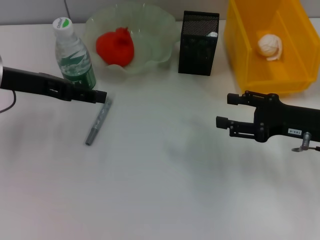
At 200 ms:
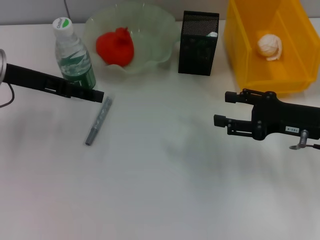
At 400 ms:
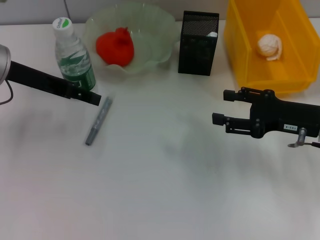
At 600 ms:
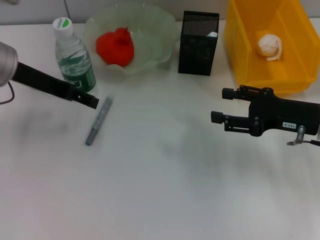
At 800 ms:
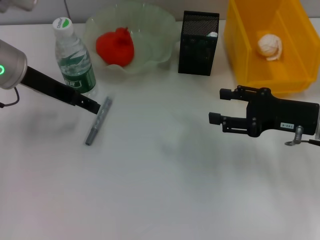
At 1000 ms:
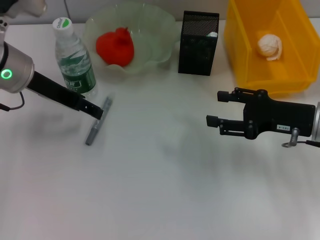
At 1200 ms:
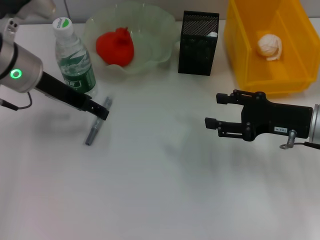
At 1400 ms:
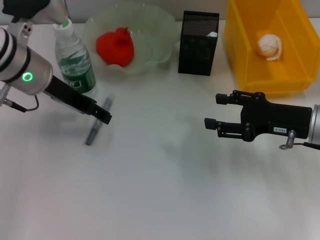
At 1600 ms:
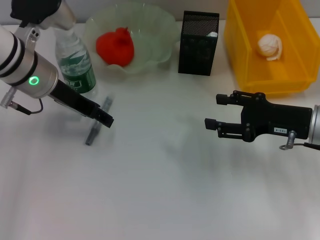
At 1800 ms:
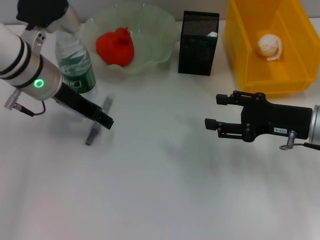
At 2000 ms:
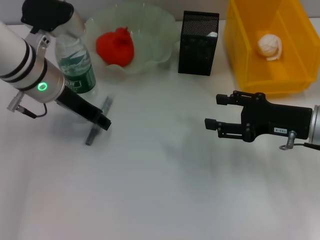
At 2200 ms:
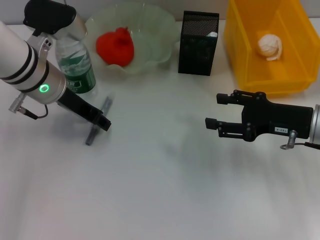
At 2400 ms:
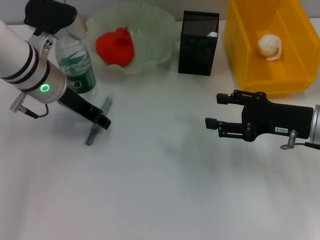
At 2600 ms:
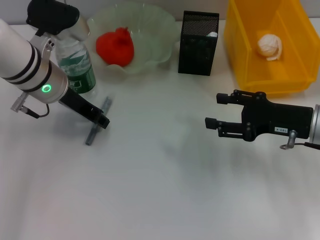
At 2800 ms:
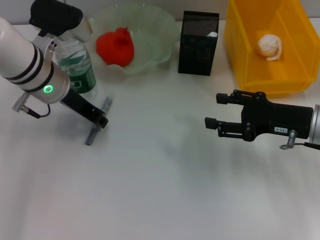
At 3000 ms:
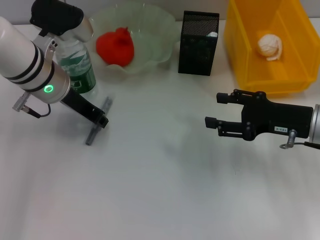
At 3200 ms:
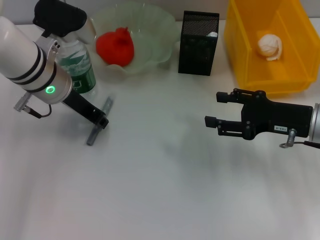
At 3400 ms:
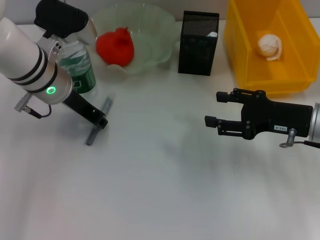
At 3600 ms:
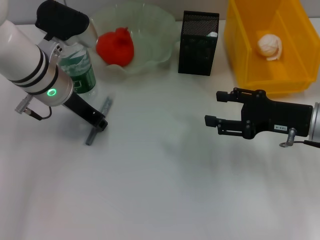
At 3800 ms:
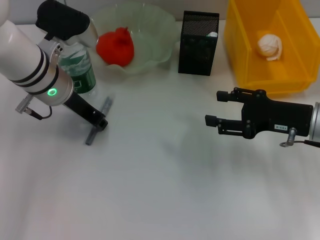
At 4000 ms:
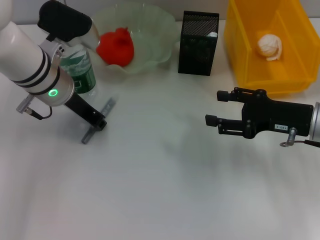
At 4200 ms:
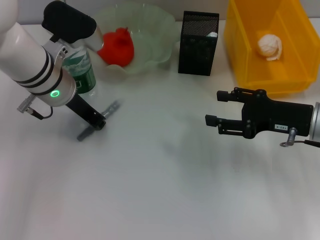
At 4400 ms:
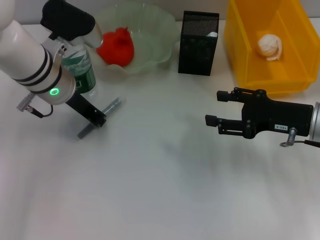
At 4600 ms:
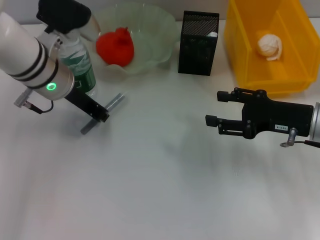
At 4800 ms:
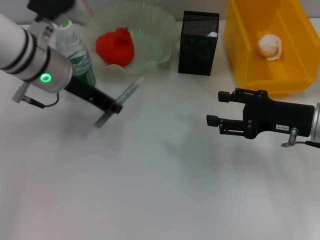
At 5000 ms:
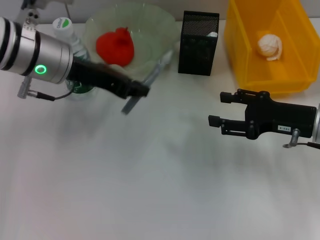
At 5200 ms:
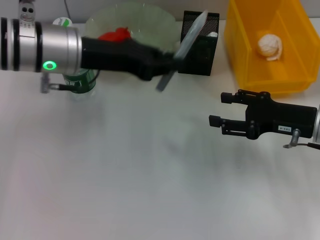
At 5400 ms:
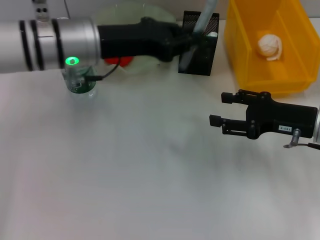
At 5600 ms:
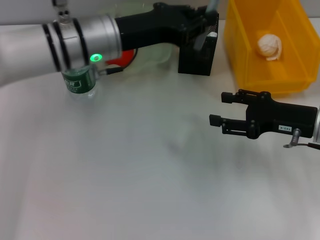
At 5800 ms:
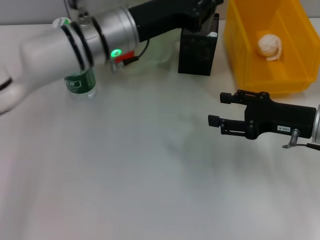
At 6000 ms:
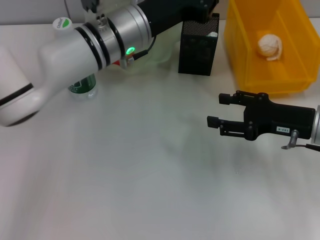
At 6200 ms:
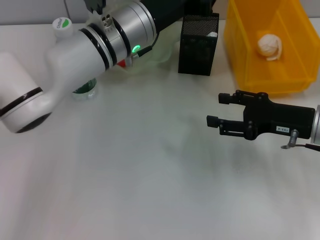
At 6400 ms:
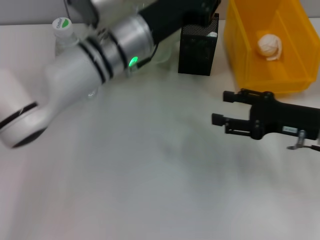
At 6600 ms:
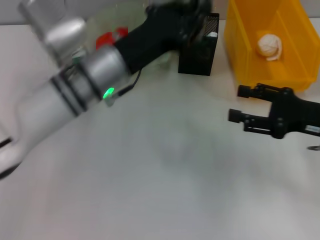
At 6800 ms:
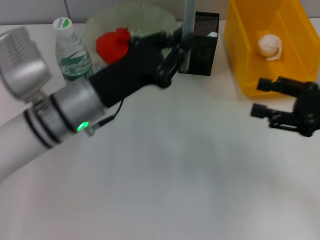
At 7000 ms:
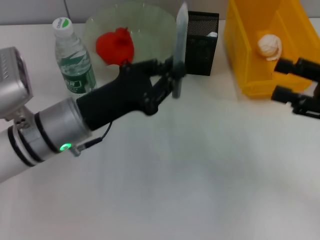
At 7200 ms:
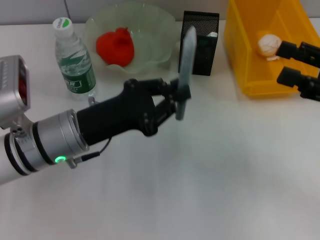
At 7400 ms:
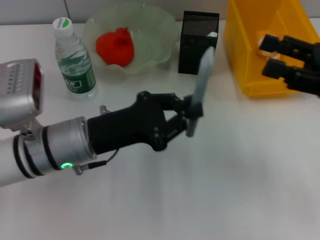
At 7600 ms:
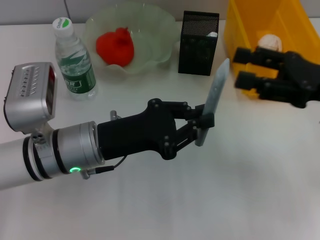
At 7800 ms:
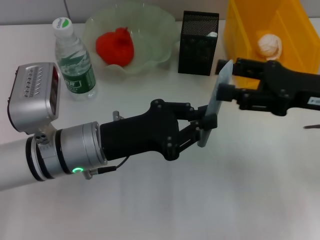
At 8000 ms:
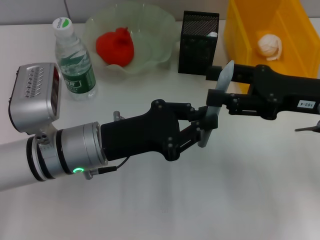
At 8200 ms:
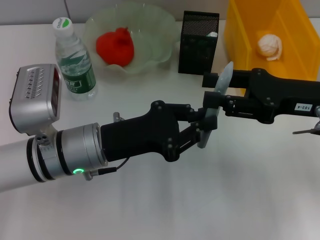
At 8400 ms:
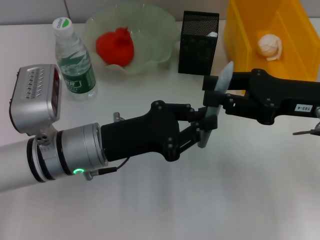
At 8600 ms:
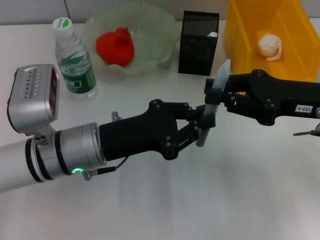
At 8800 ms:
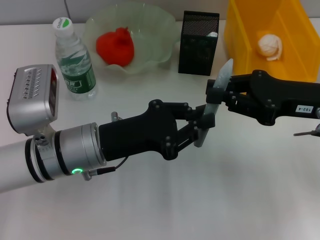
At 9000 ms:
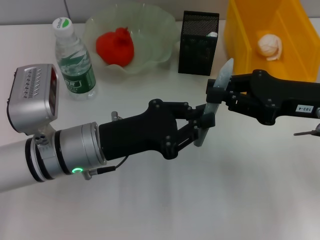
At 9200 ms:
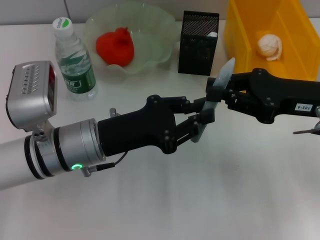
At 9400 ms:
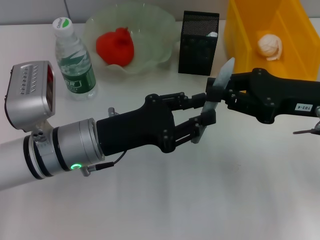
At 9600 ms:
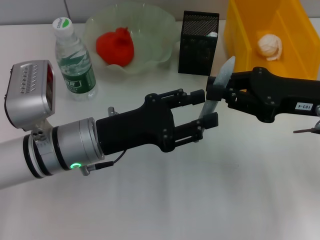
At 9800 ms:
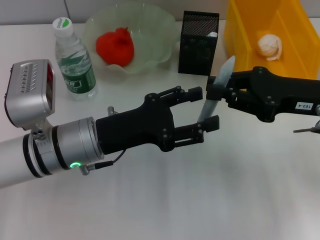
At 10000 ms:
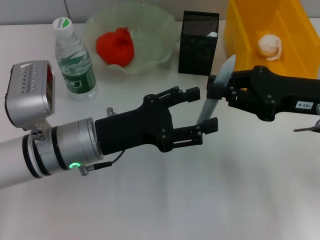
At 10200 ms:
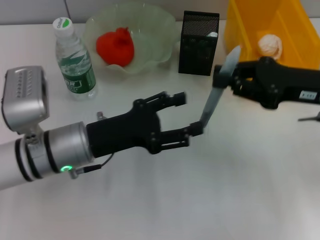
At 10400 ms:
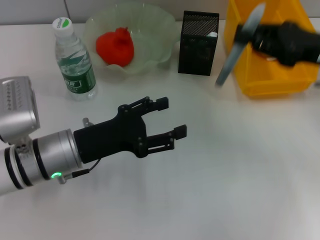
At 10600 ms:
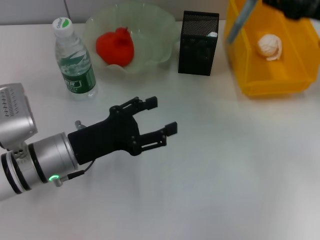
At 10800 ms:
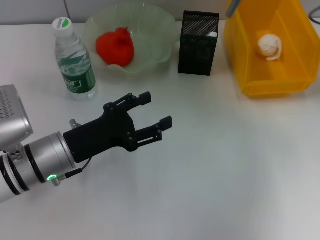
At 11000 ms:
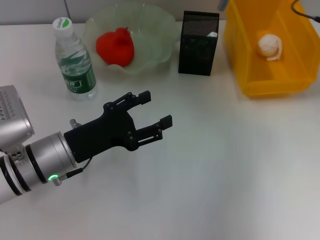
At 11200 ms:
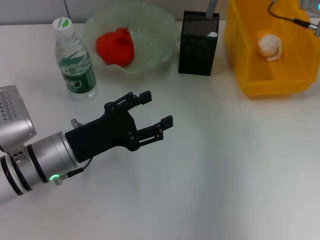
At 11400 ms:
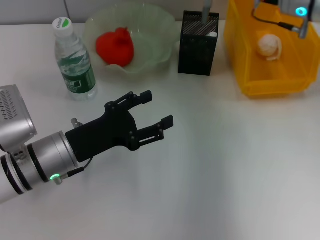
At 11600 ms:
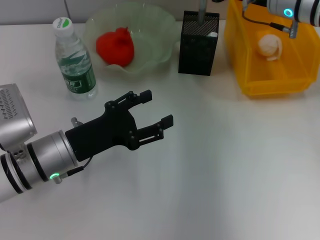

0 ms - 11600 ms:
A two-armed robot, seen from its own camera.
Step, 0 ms - 3800 ms: Grab the gray glue with the left hand.
Step, 4000 ms - 10000 ms: Pass the gray glue from the left hand to the right hand.
0 ms - 1400 ms: The left gripper heads to the right, covering approximately 5 cm.
1400 ms - 2800 ms: The left gripper closes its fingers.
2800 ms - 4400 ms: The left gripper closes its fingers.
4400 ms - 5800 ms: The left gripper shifts roughly 5 cm to the right.
5800 ms - 7200 ms: The left gripper goes some 15 cm backward, to the left and downward, while the right gripper moves upward and to the right, approximately 10 cm.
7200 ms - 8800 ms: The right gripper moves to the left, about 5 cm, and closes.
8800 ms - 10200 ms: The left gripper opens up.
10200 ms - 11600 ms: The right gripper goes roughly 15 cm forward and to the left.

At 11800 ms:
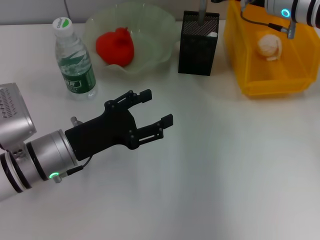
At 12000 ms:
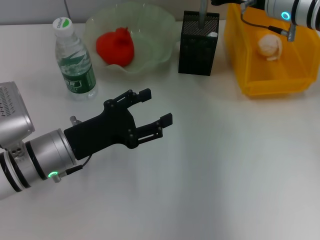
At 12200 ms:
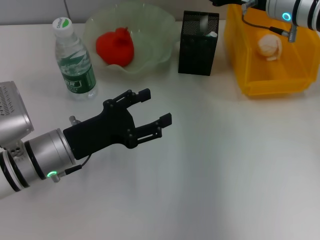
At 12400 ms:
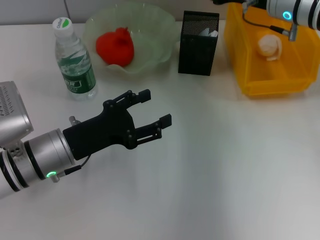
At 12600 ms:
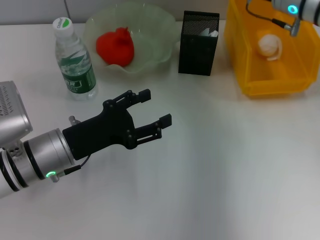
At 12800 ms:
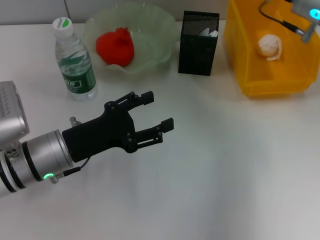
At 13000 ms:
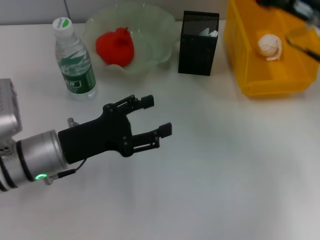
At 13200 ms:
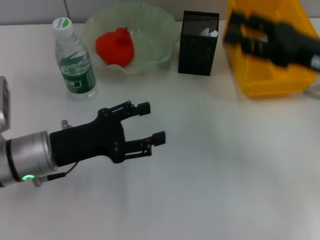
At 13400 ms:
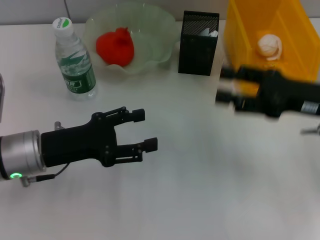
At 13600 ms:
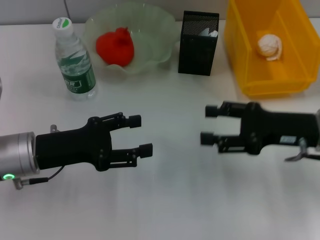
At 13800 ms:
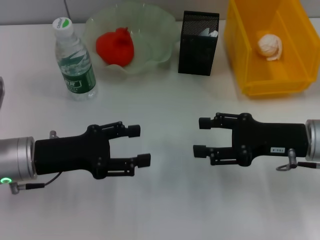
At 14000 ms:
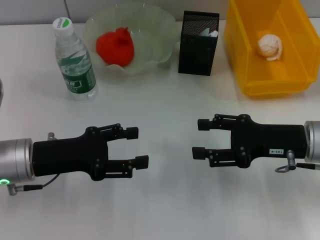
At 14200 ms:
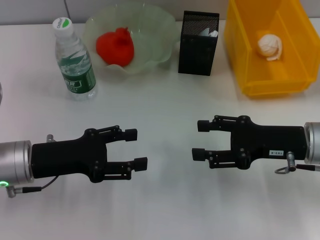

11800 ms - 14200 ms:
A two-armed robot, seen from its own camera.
11800 ms - 13000 ms: The right gripper is displaced backward and to the right by roughly 10 cm, and opens its fingers.
13000 ms - 14200 ms: The right gripper goes approximately 10 cm downward and backward.
